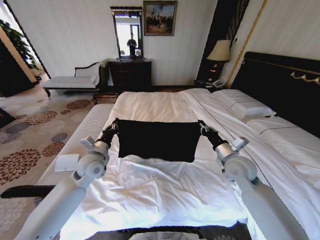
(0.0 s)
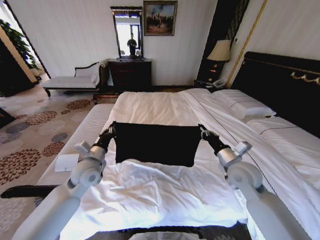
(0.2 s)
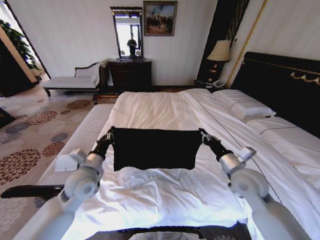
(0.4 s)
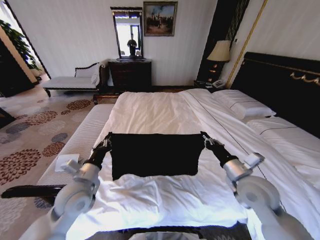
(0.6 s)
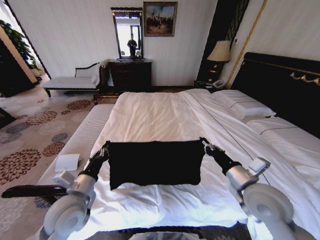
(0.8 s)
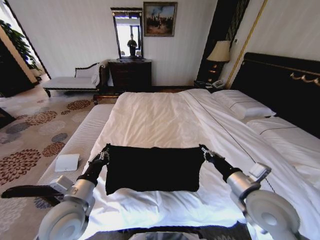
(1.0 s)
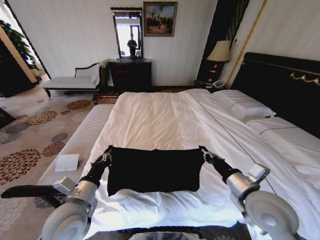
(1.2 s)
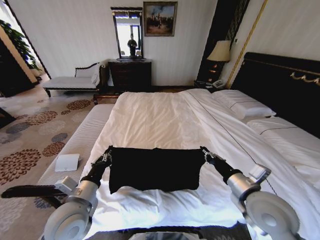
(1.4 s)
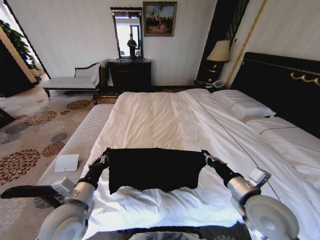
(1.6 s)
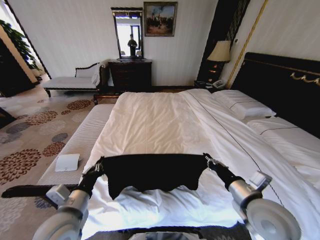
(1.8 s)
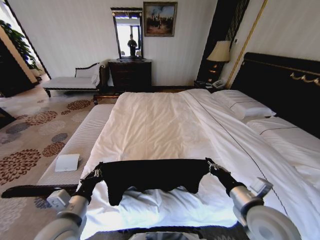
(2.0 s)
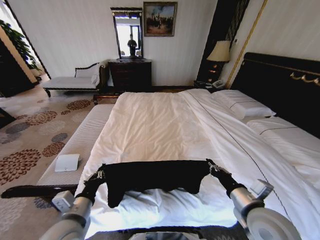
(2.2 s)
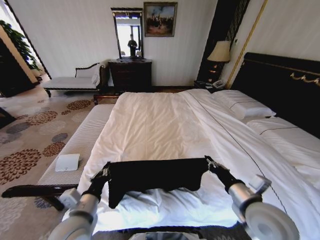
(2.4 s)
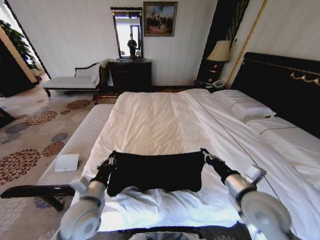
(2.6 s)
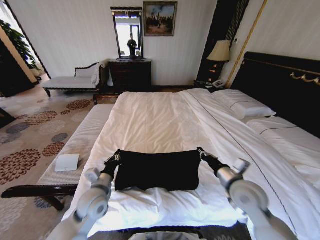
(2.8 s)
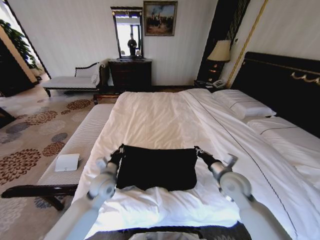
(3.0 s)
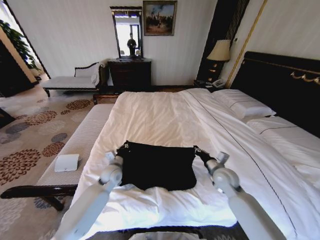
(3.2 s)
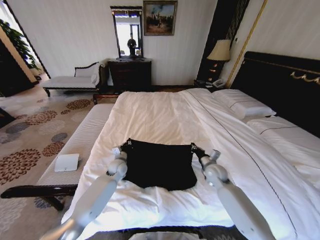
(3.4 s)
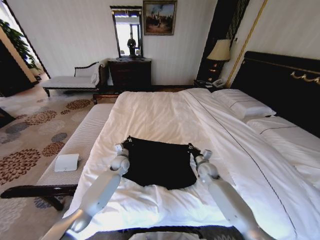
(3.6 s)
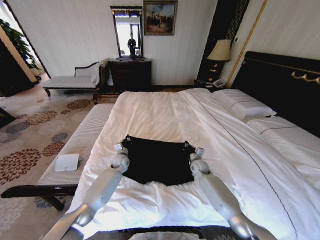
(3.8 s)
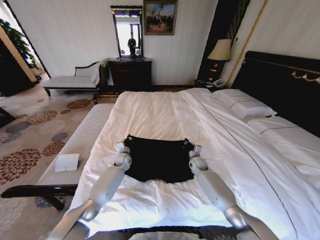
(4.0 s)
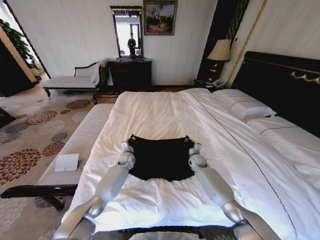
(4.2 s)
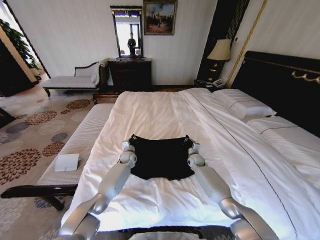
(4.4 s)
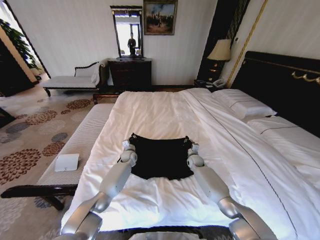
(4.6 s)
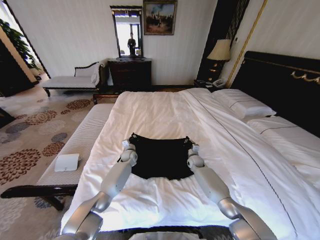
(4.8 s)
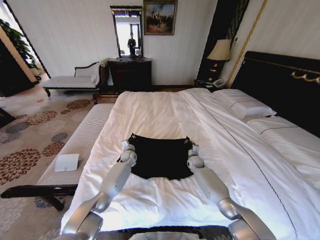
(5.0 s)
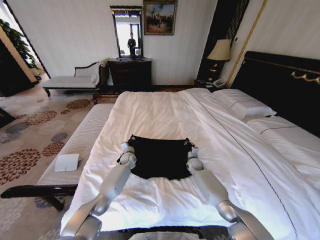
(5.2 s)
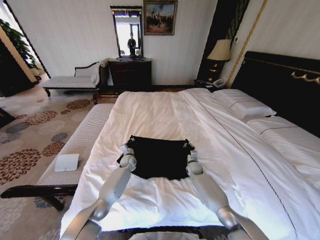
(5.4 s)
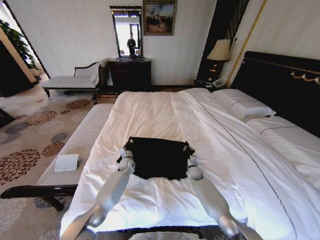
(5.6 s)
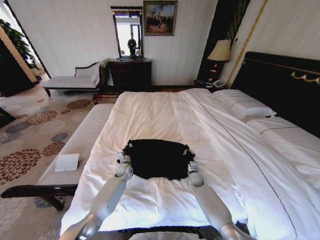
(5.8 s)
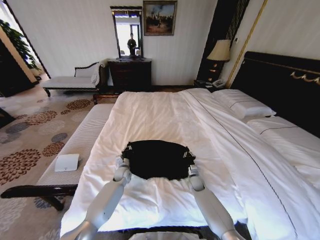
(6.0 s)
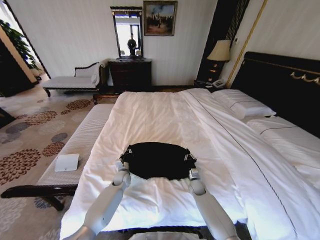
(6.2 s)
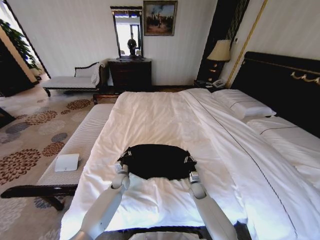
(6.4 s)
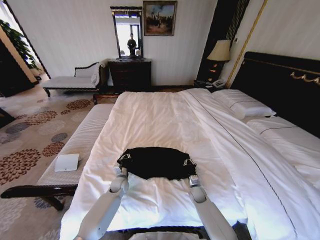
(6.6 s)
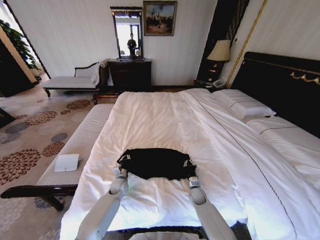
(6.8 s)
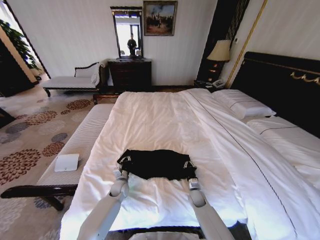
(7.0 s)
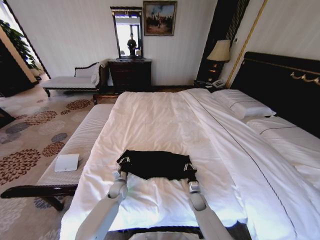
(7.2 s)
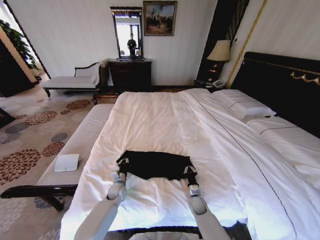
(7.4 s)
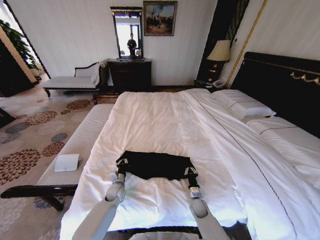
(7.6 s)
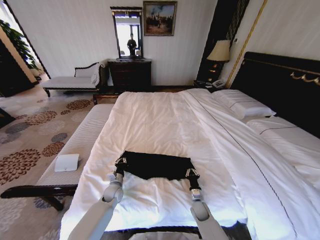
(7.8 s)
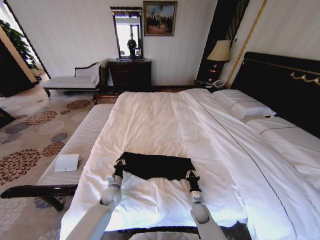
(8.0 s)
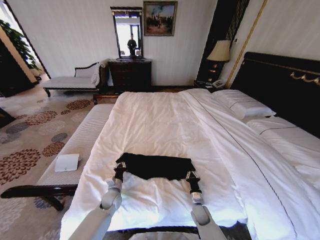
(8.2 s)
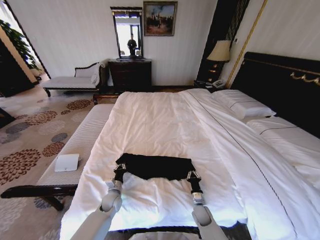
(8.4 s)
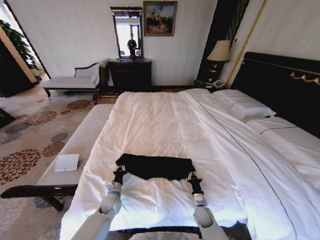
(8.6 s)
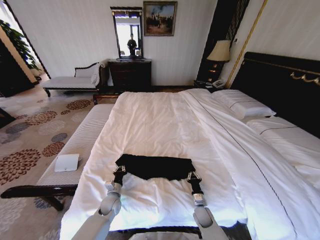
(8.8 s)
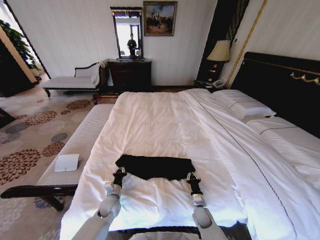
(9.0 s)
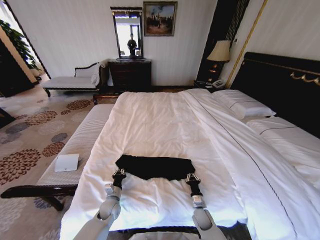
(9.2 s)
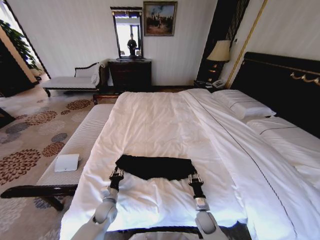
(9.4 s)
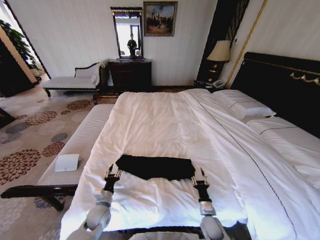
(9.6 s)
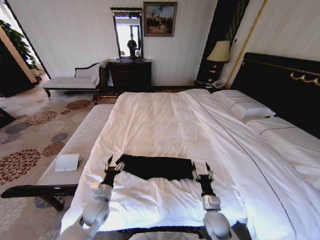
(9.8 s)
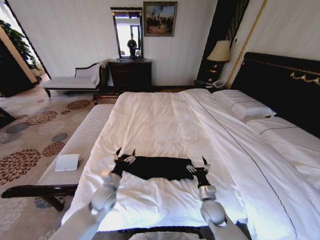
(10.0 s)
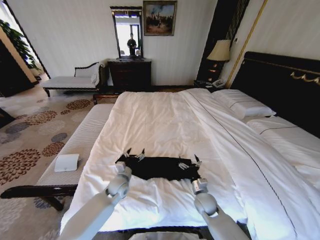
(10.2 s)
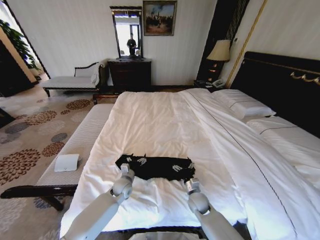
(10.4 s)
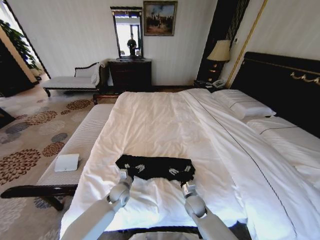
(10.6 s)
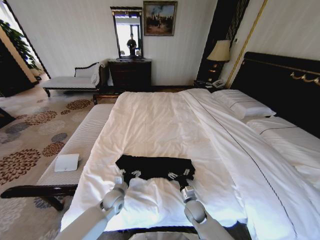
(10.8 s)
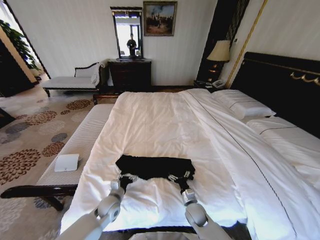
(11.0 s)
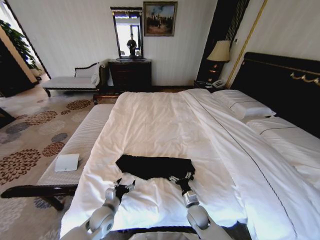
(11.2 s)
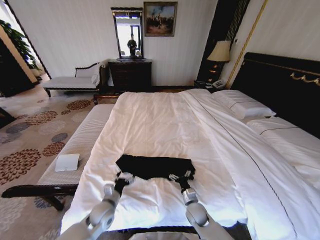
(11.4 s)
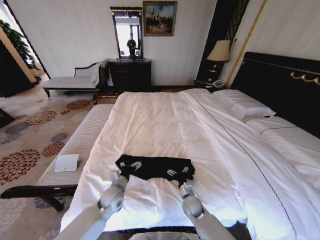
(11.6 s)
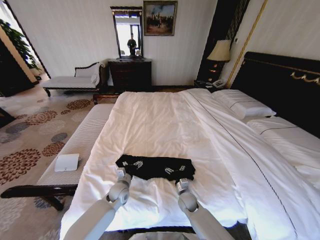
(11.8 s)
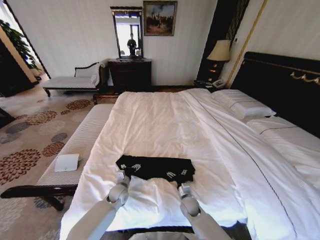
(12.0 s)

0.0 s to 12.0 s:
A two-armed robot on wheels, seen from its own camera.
Task of the whole recording: Fold the clothes on the bed.
0.0 to 1.6 s: The two grippers go roughly 15 cm backward.
1.6 to 3.0 s: Both grippers move forward and downward, approximately 15 cm.
3.0 to 4.4 s: The two grippers go approximately 25 cm forward and downward.
4.4 to 6.0 s: The right gripper goes roughly 15 cm backward and downward, while the left gripper shifts approximately 10 cm backward.
6.0 to 7.6 s: Both grippers travel together backward, some 10 cm.
7.6 to 9.0 s: The left gripper moves backward, roughly 5 cm.
9.0 to 10.4 s: The right gripper is displaced upward by some 10 cm, and opens up, while the left gripper shifts some 10 cm forward, upward and to the right, and opens up.
10.4 to 12.0 s: The left gripper reaches roughly 15 cm backward, then returns. Meanwhile the right gripper shifts some 5 cm downward.

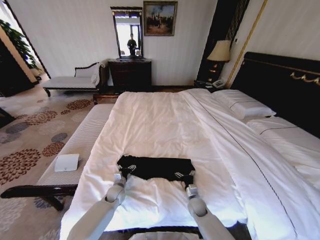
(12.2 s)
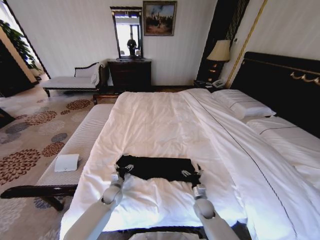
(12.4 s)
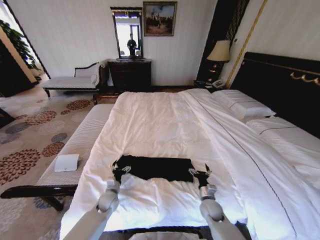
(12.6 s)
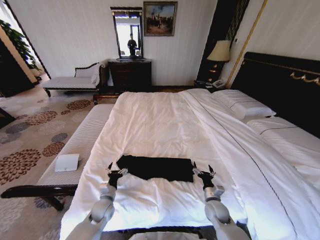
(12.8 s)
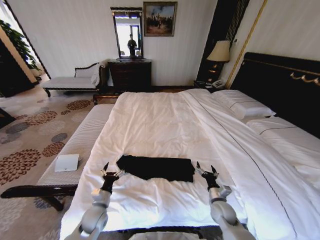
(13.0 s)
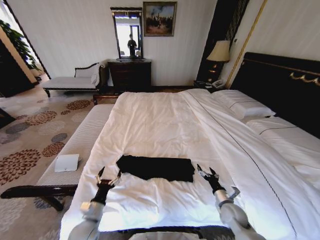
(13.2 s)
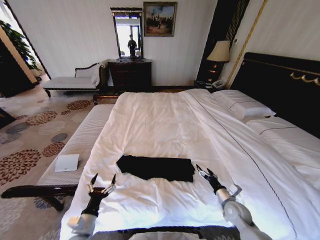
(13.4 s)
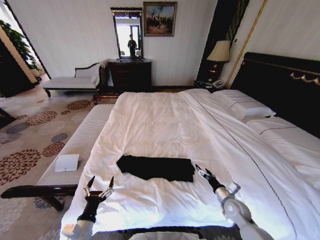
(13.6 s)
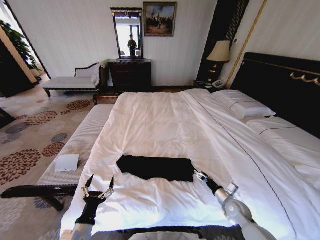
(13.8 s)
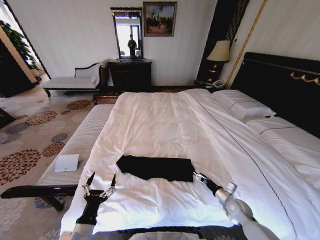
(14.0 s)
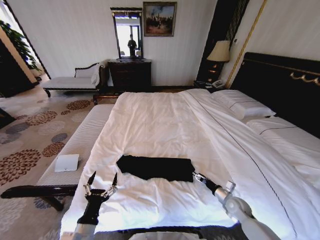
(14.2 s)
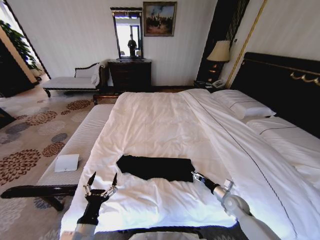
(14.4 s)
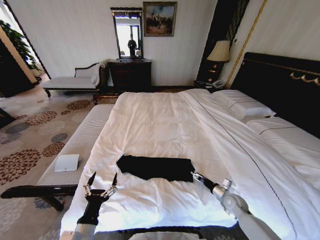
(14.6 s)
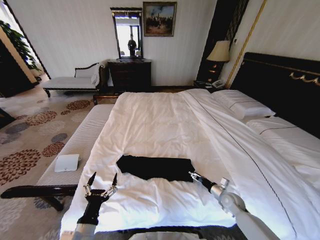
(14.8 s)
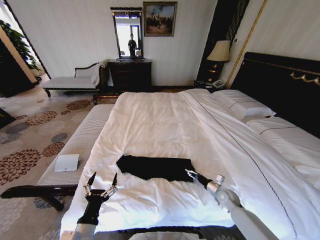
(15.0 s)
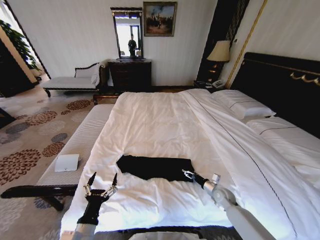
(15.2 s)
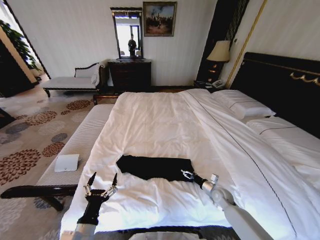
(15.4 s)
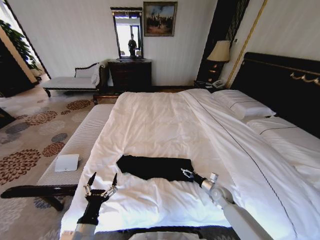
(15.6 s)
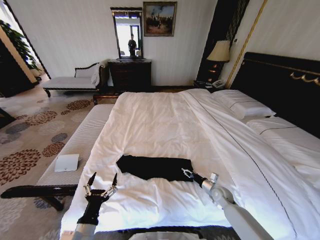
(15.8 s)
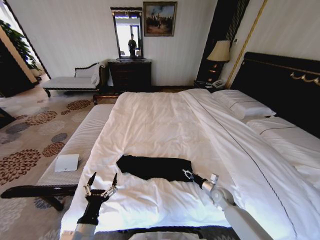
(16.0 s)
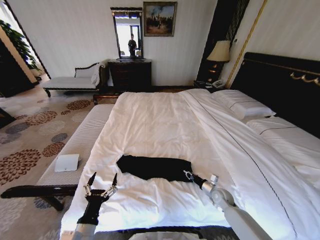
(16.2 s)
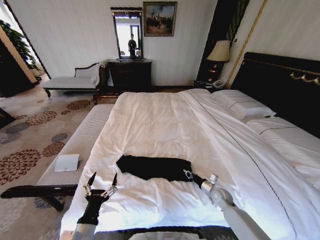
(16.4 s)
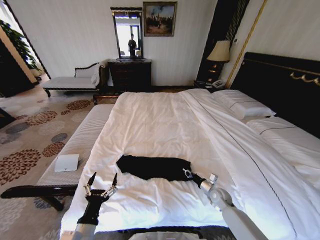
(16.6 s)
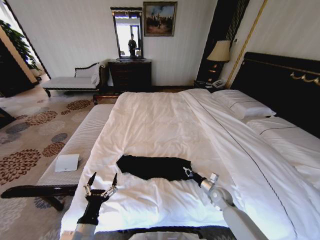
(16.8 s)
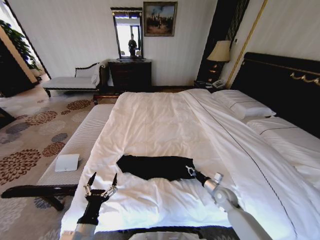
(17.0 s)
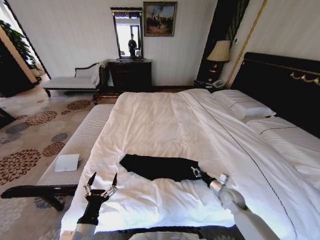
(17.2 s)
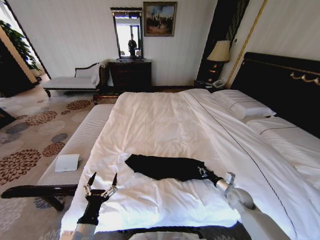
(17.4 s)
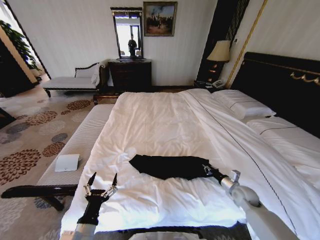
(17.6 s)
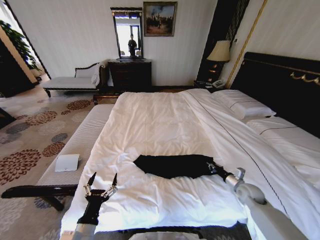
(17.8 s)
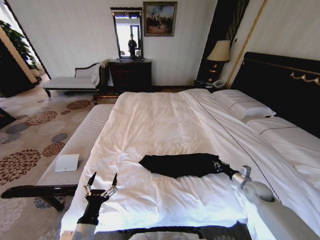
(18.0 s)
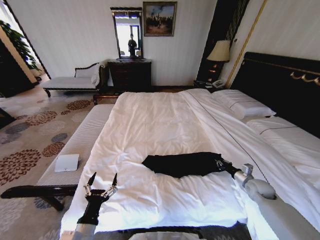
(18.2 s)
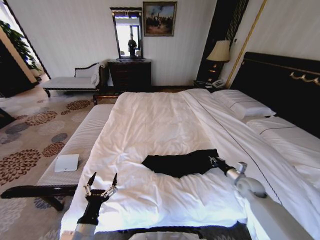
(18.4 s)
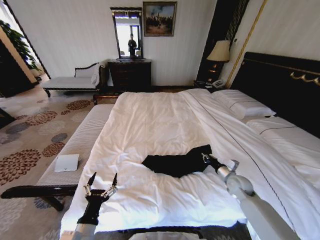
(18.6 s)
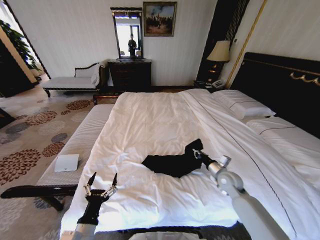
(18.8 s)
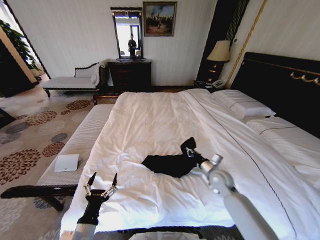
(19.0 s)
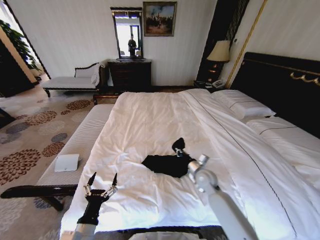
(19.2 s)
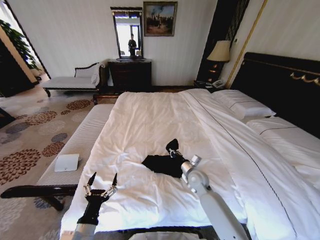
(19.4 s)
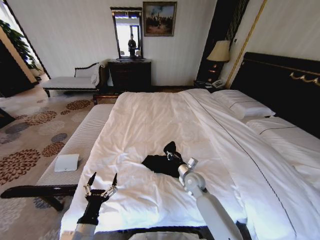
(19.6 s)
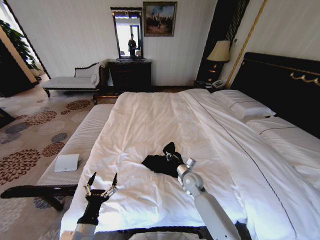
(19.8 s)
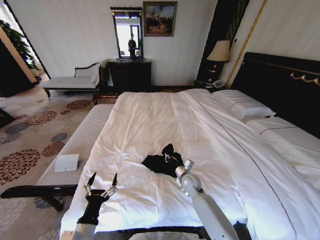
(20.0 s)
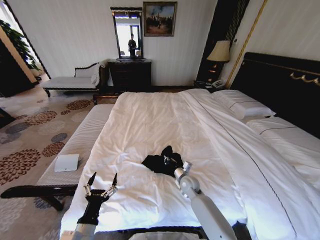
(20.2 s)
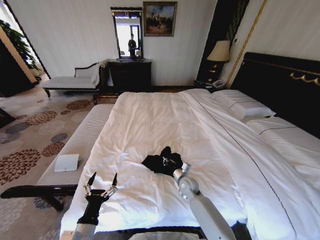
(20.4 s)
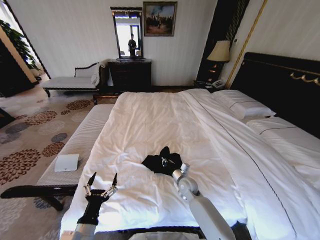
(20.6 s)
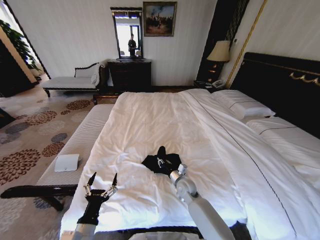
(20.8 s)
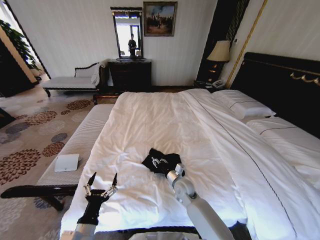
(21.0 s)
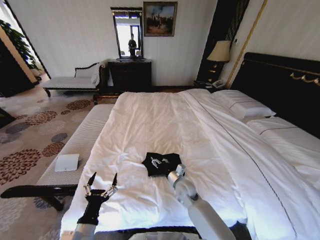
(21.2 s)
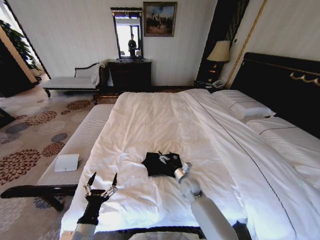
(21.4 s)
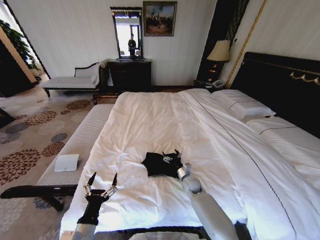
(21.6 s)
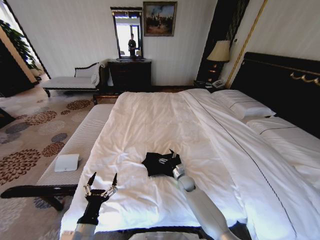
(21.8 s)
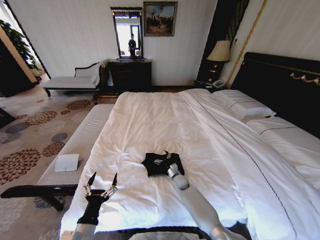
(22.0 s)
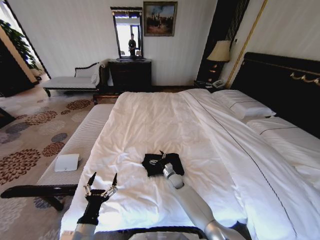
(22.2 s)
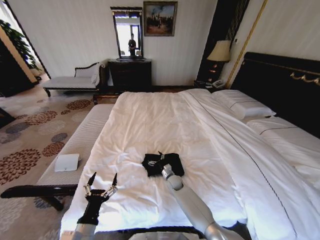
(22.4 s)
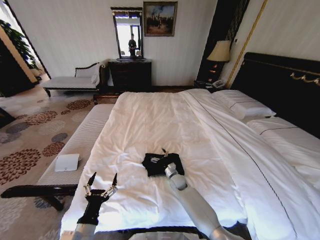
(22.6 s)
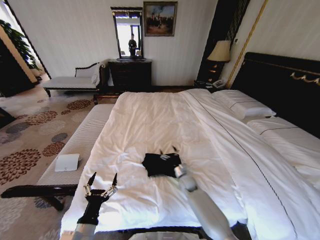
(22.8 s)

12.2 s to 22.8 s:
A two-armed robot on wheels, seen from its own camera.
Task of the whole recording: Fold the clothes on the bed.
12.2 to 13.8 s: The right gripper heads to the right and upward, covering approximately 20 cm; the left gripper shifts approximately 25 cm backward and upward.
13.8 to 15.2 s: The right gripper travels forward by roughly 5 cm.
15.2 to 16.8 s: The right gripper closes up.
16.8 to 18.2 s: The right gripper travels to the right and upward by roughly 15 cm.
18.2 to 19.8 s: The right gripper is displaced to the left by about 30 cm.
19.8 to 21.2 s: The right gripper changes place by about 5 cm, and opens its fingers.
21.2 to 22.8 s: The right gripper moves downward and forward, about 10 cm.
